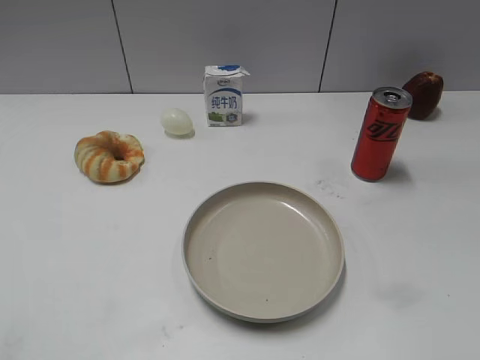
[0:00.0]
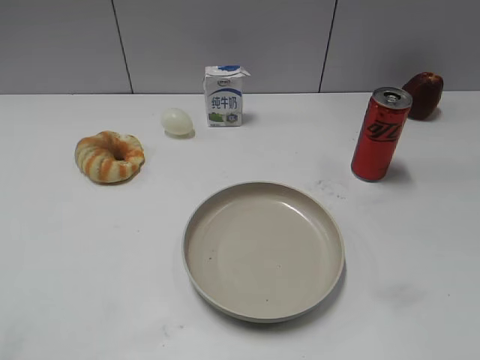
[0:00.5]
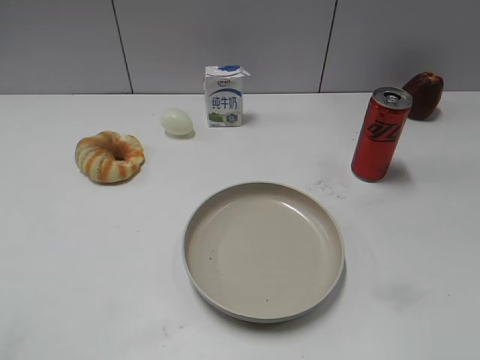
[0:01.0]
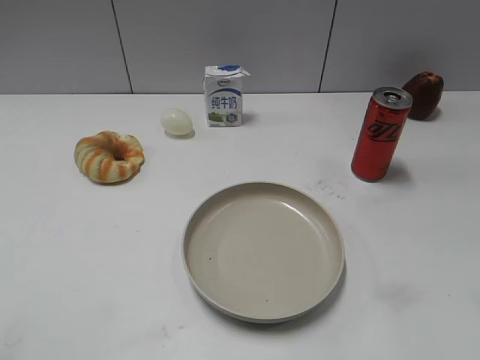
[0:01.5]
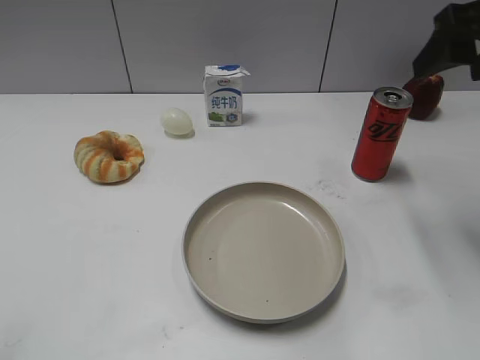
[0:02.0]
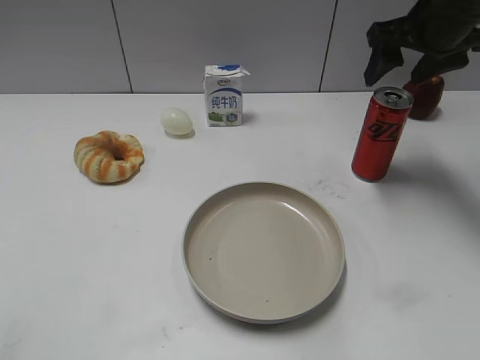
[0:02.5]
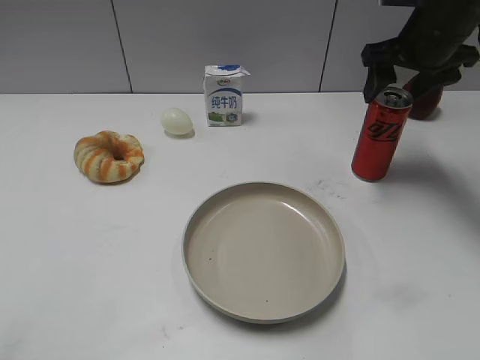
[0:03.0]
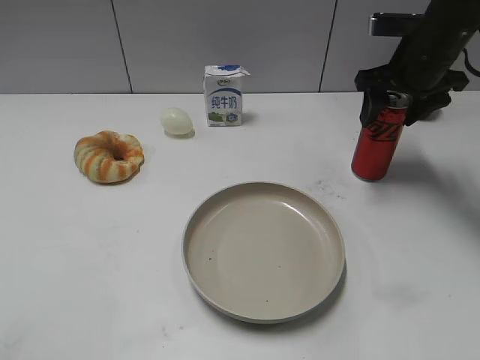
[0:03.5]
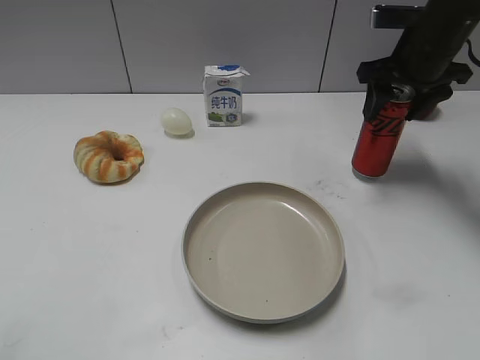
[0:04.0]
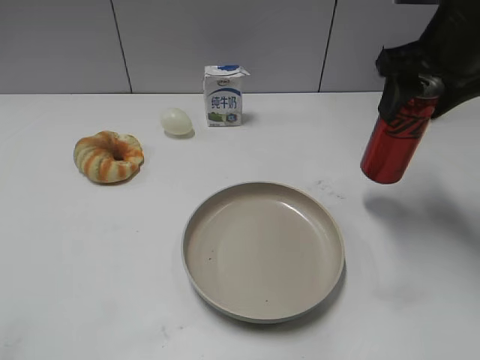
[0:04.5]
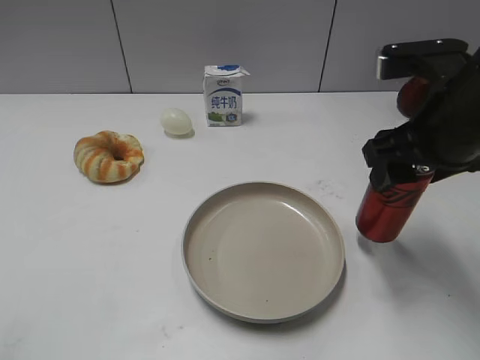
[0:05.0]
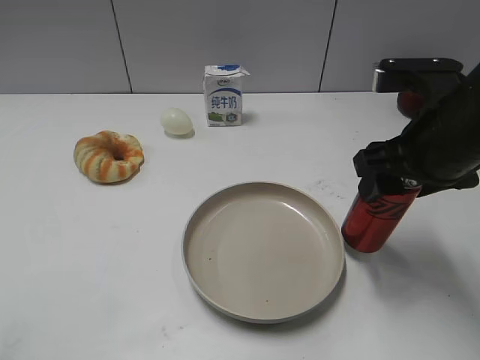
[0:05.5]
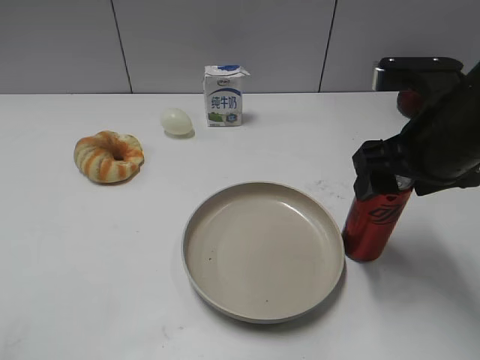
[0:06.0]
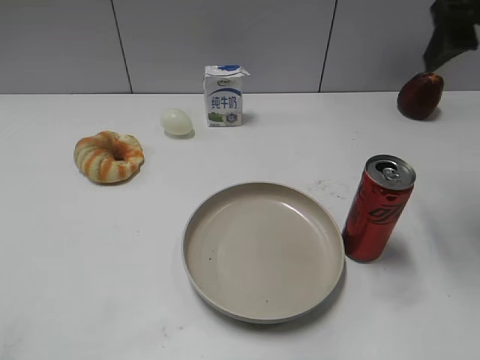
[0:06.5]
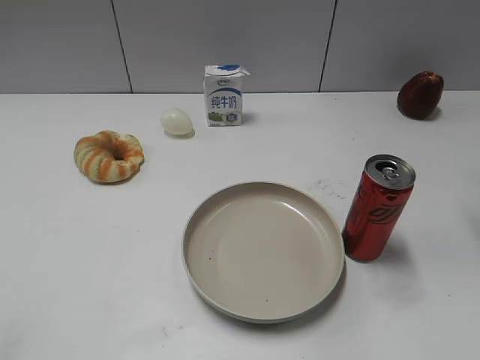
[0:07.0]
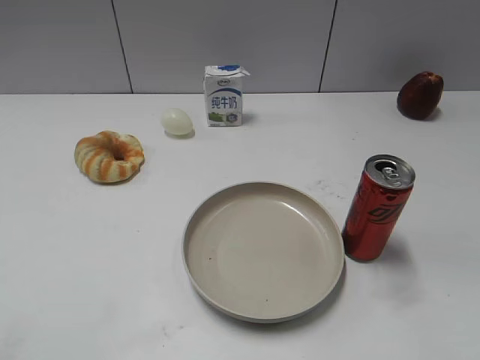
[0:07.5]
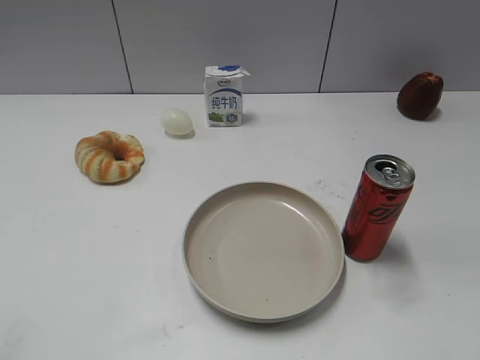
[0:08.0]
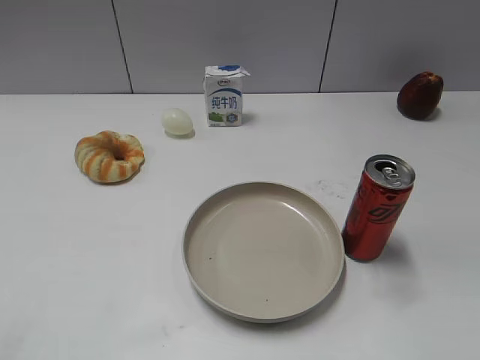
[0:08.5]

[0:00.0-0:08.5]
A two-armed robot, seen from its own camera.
Step, 0:01.0 to 0:03.5: Grasp the cola with right gripper.
Step, 0:04.0 to 0:06.0: Place the cola on the table with right gripper.
0:02.0 to 0:04.0: The right gripper shifts some 15 cm forward and downward, and closes.
0:04.0 to 0:06.5: The right gripper is displaced upward and backward by about 15 cm, and opens.
0:06.5 to 0:08.5: The right gripper goes about 30 cm backward.

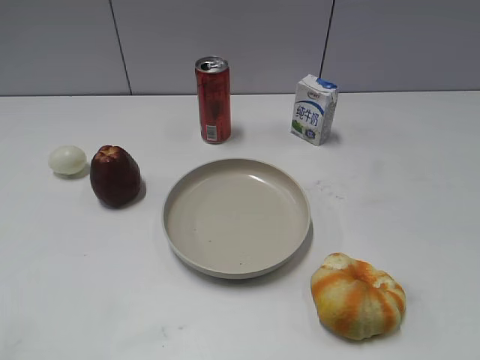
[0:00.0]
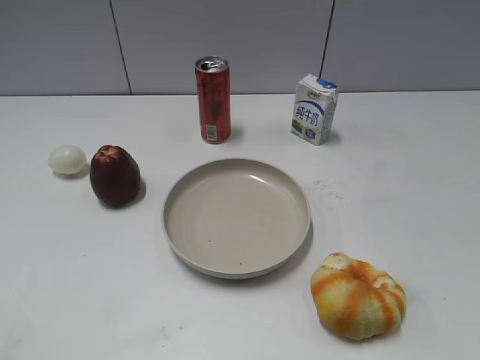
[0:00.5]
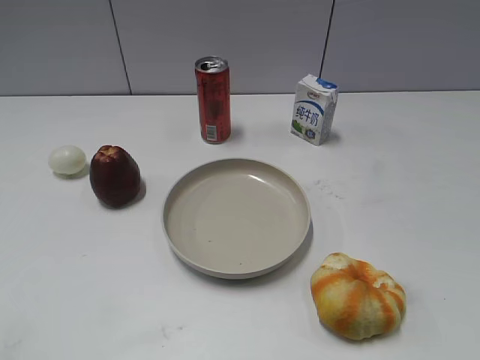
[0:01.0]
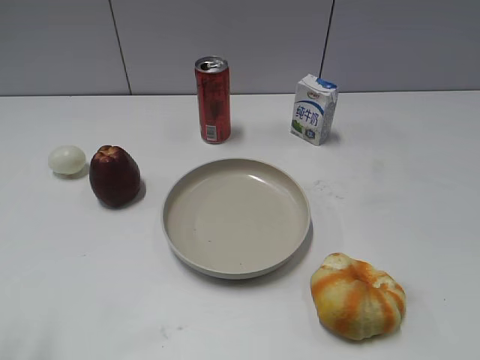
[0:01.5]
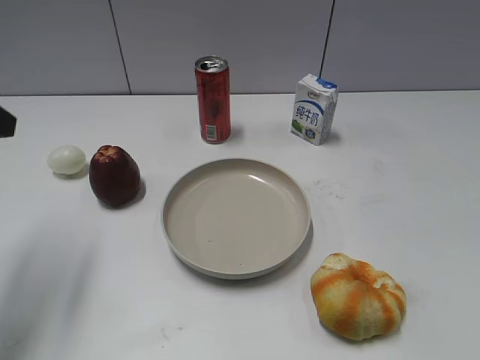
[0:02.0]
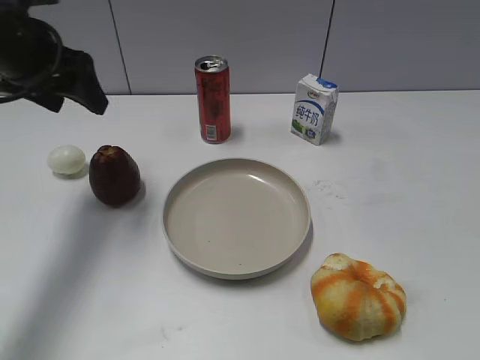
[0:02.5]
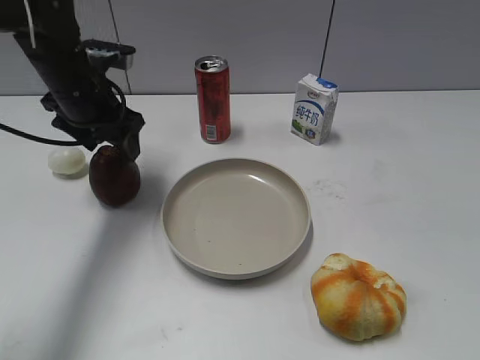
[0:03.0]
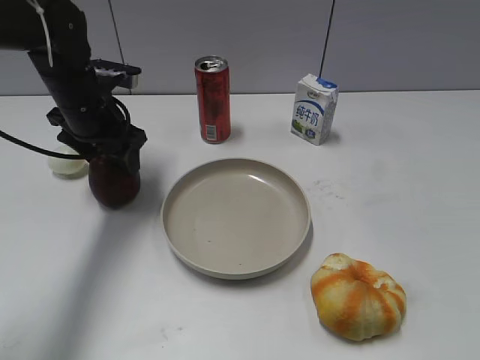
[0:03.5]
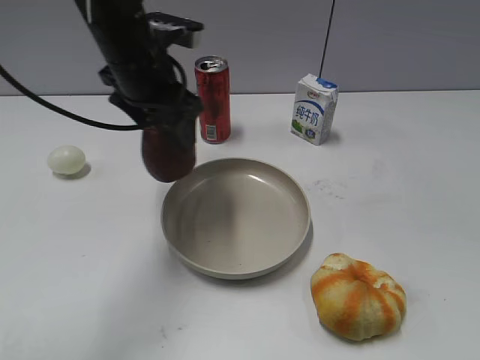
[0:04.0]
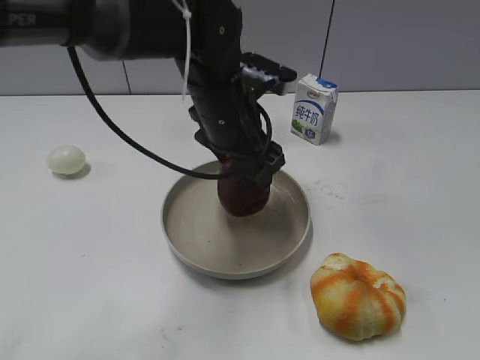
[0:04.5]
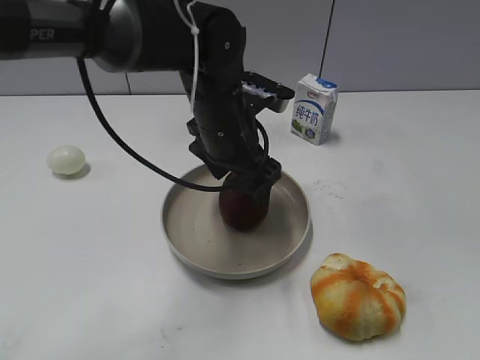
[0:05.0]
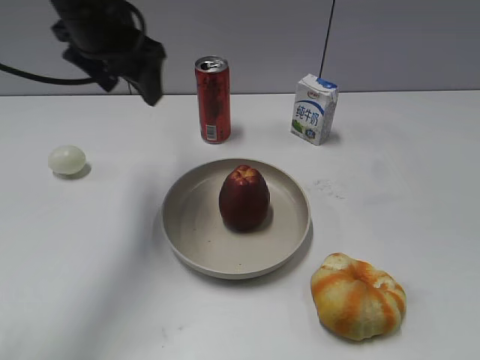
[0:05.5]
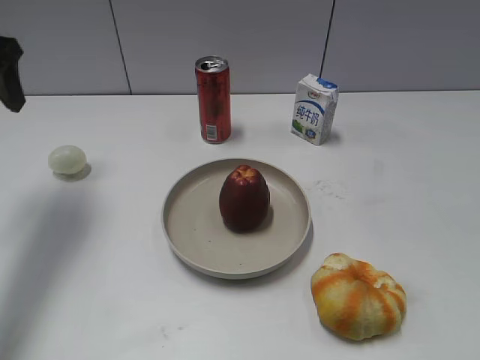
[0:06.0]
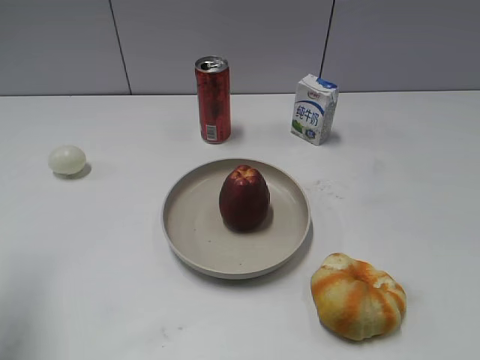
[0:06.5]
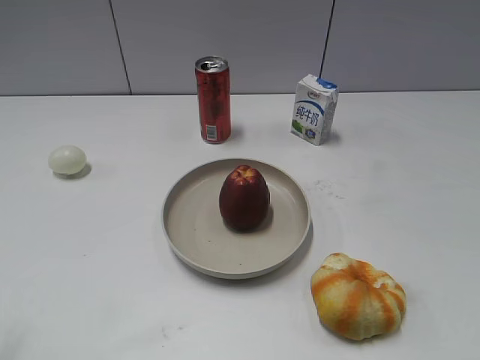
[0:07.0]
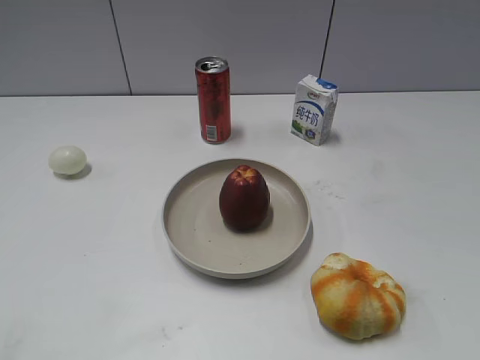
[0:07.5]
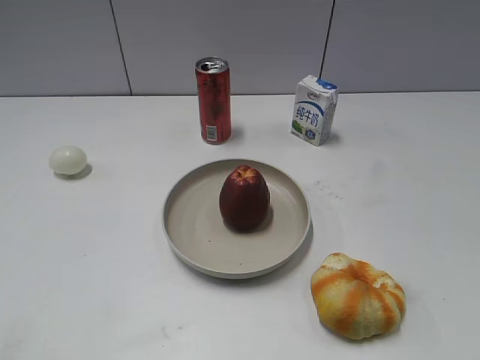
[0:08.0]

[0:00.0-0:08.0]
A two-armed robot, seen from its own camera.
Step, 0:02.0 to 0:03.5: Grasp the apple with left gripper.
Step, 0:04.0 to 0:05.0: Place the apple on the plate with left gripper.
0:02.0 to 0:04.0: The left gripper moves to the right and forward, some 25 cm, and closes up.
0:04.0 to 0:06.0: The left gripper shifts some 20 cm to the left, and opens, then closes again.
0:06.0 to 0:08.0: The left gripper goes roughly 35 cm backward.
